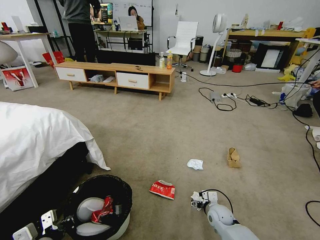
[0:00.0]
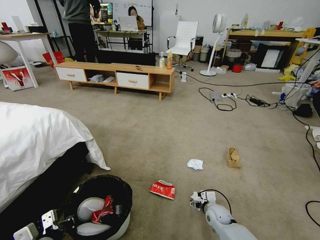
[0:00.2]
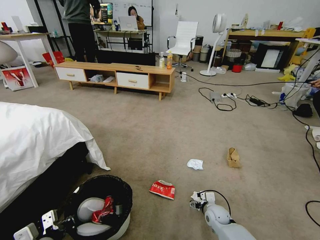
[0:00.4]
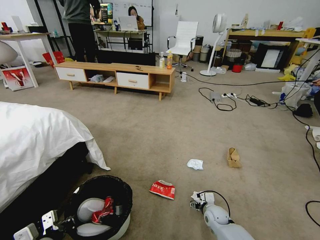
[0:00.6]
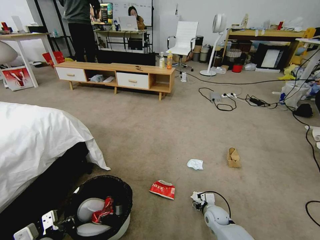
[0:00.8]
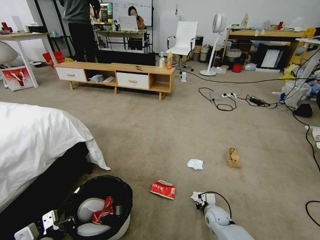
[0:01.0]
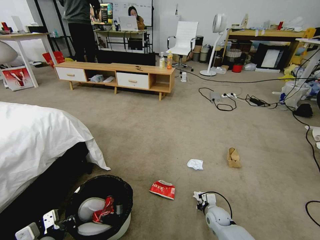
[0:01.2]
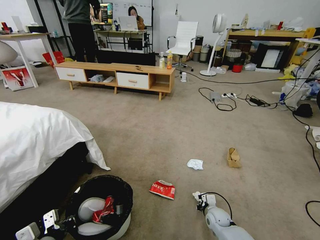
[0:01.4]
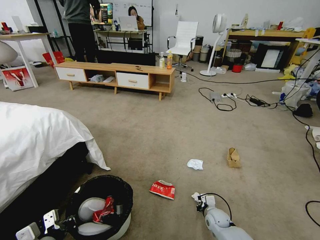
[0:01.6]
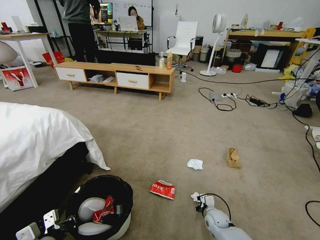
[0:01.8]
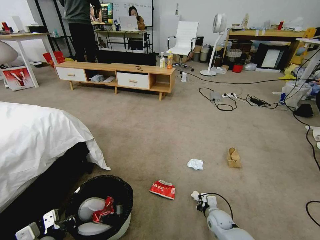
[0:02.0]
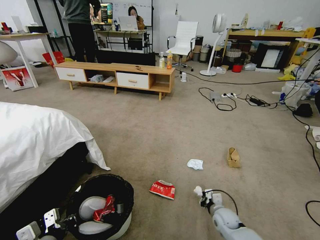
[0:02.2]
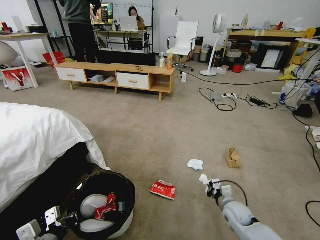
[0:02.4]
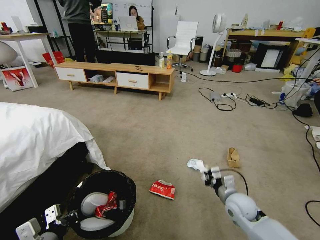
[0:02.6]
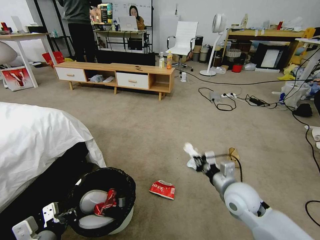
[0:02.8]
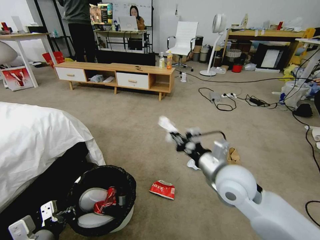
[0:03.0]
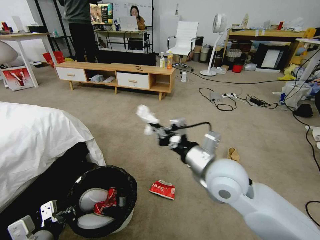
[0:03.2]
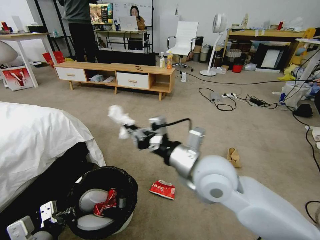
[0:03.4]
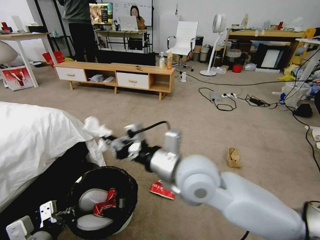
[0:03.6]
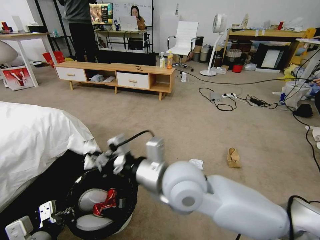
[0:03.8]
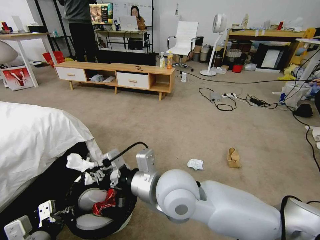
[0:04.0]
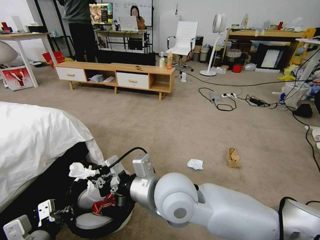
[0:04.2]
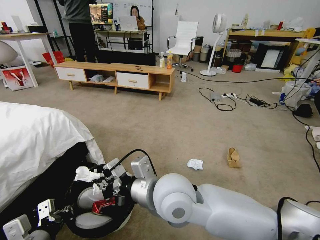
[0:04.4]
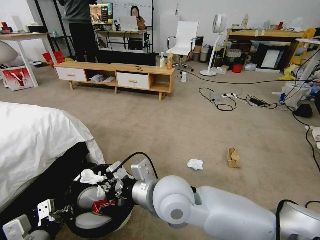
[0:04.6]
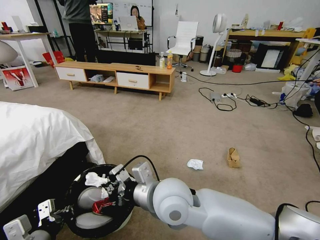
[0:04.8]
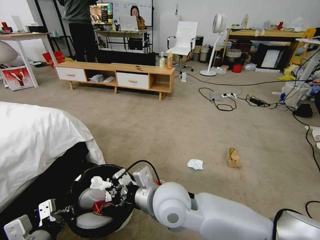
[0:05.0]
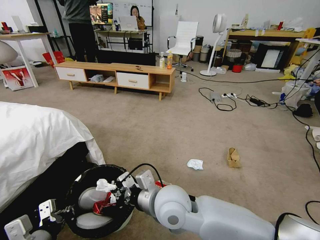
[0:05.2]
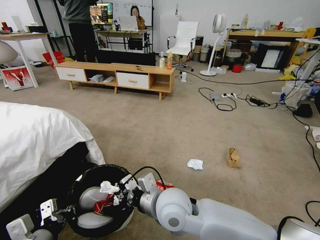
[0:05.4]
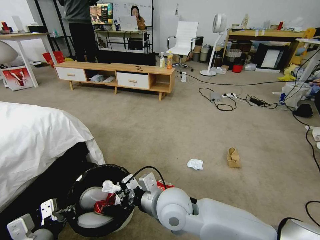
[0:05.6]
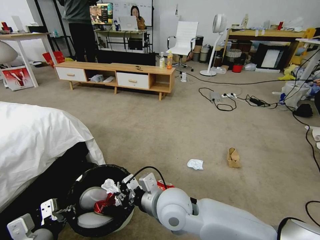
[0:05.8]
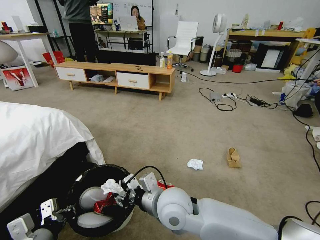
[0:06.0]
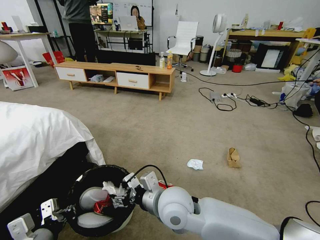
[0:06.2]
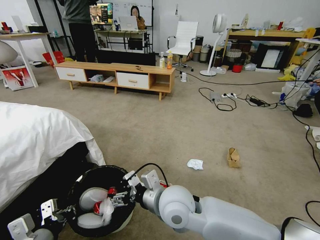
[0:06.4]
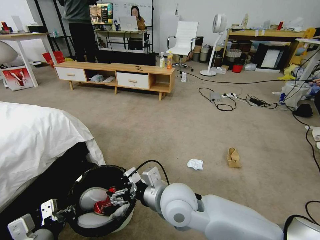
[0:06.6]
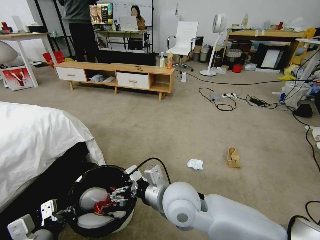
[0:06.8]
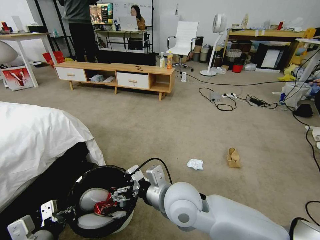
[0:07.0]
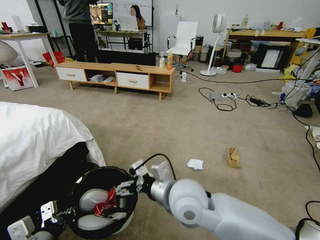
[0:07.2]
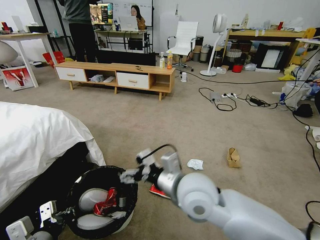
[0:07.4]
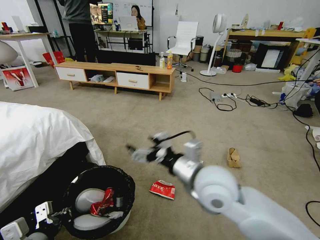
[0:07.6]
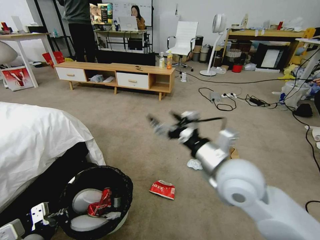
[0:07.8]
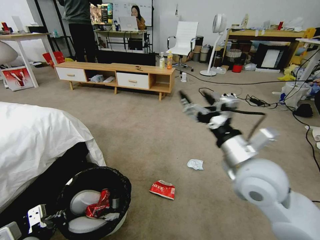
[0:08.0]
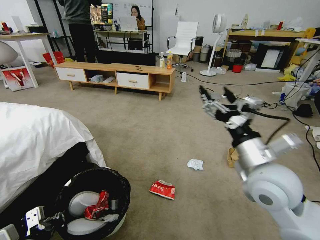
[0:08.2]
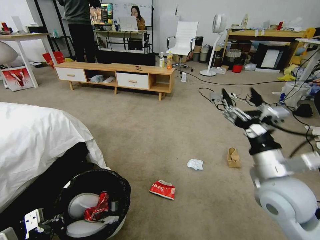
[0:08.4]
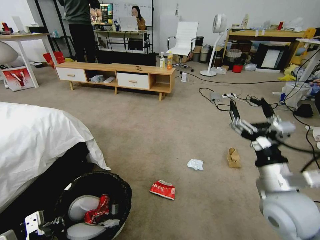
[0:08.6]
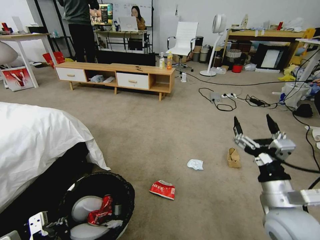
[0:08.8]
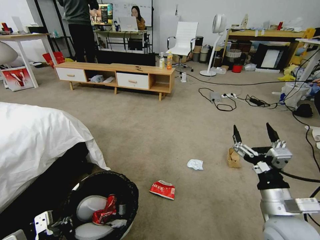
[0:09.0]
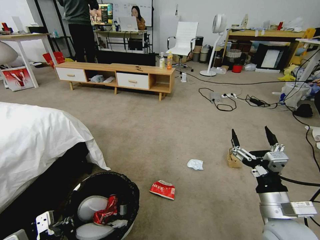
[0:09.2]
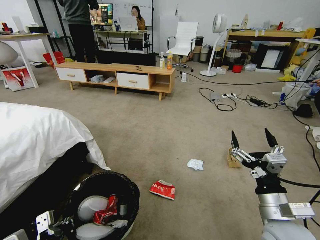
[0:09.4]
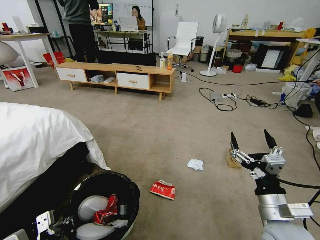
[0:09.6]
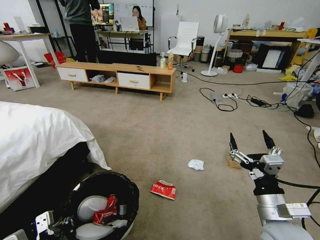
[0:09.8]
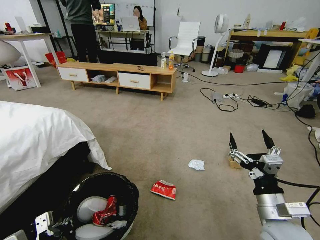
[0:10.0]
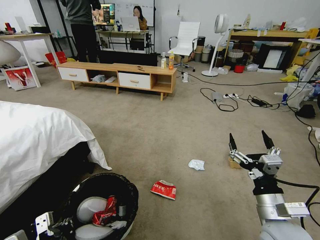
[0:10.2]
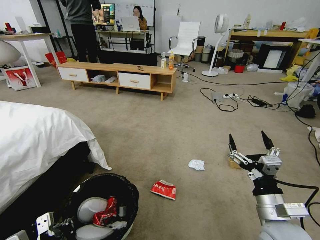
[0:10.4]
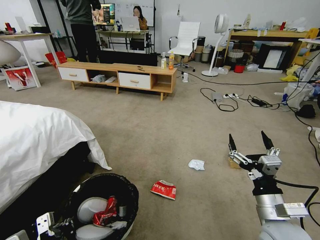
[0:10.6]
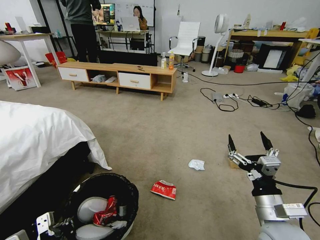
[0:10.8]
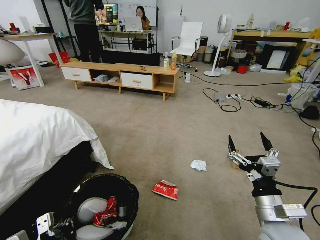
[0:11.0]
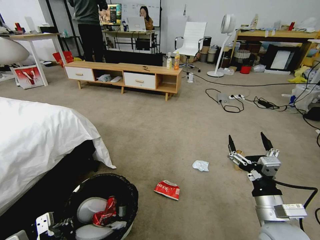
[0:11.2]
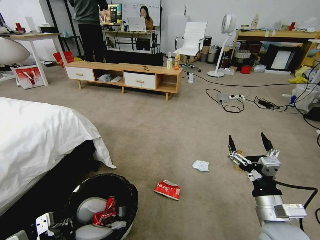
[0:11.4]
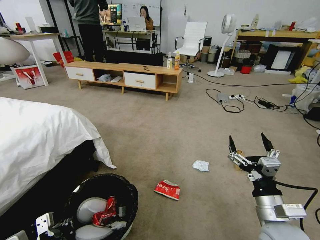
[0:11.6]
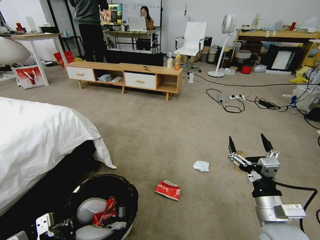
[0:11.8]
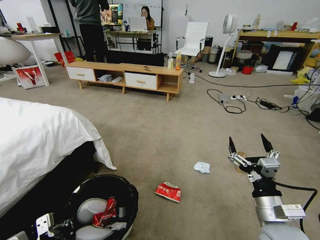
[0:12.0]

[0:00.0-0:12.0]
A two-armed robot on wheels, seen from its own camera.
Task of the whole recording: Pick up the trash bin and place the garbage on the floor into it.
0:00.0 to 0:01.6: The right gripper closes up.
0:01.6 to 0:03.0: The right gripper moves upward, some 35 cm.
0:03.0 to 0:04.4: The right gripper is displaced to the left by approximately 20 cm.
0:04.4 to 0:06.0: The right gripper shifts some 10 cm downward, and opens up.
0:06.0 to 0:07.6: The right gripper shifts some 10 cm upward and to the right, and opens up.
0:07.6 to 0:09.0: The right gripper heads to the right, downward and backward, covering approximately 20 cm.
0:09.0 to 0:10.4: There are only small adjustments of the grippers.

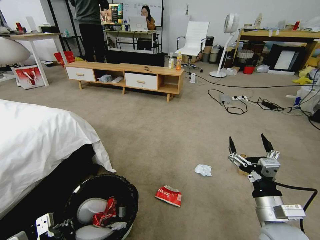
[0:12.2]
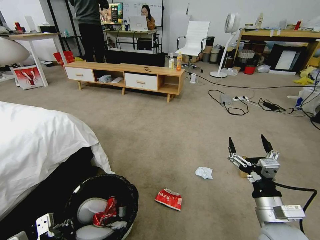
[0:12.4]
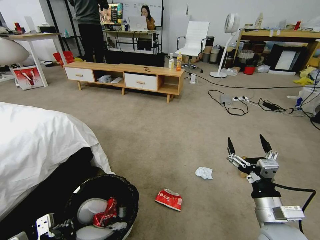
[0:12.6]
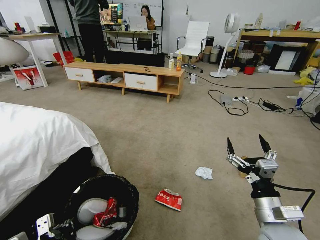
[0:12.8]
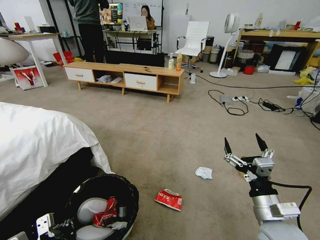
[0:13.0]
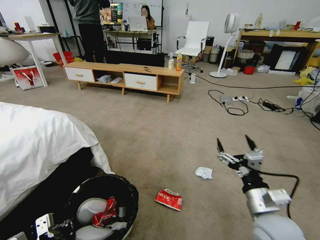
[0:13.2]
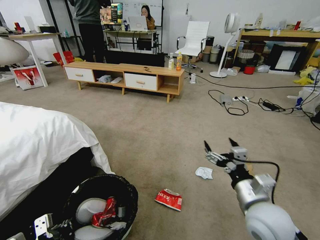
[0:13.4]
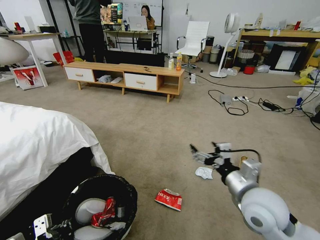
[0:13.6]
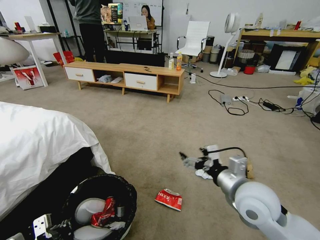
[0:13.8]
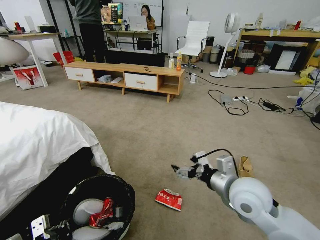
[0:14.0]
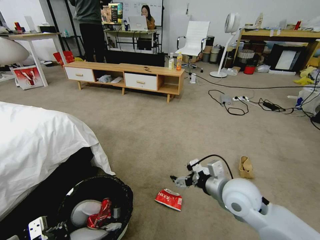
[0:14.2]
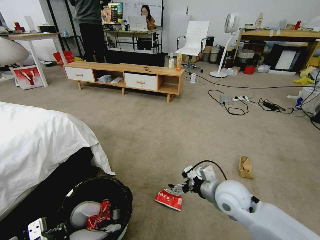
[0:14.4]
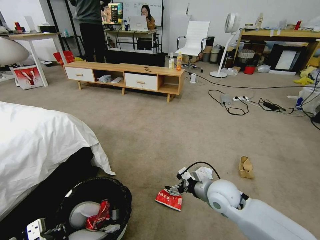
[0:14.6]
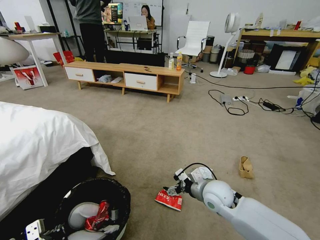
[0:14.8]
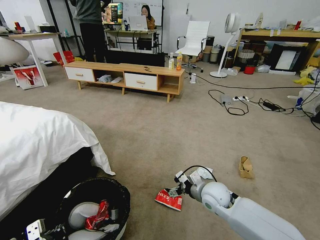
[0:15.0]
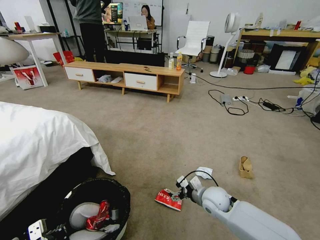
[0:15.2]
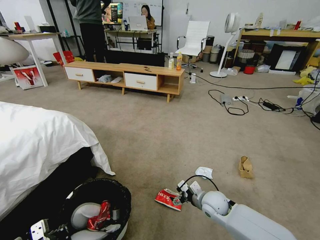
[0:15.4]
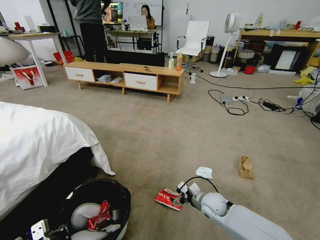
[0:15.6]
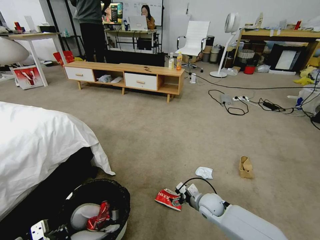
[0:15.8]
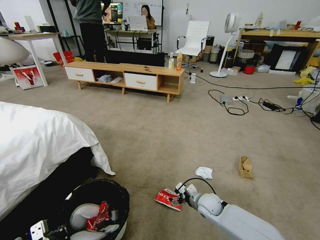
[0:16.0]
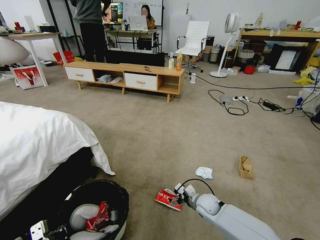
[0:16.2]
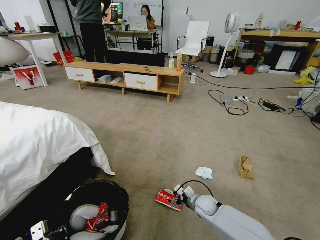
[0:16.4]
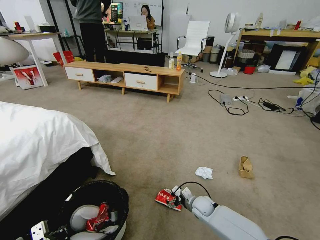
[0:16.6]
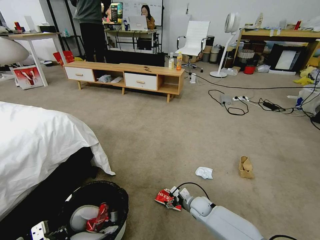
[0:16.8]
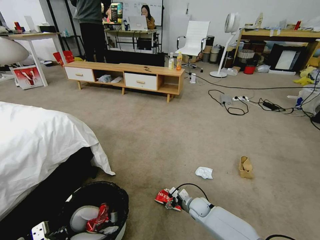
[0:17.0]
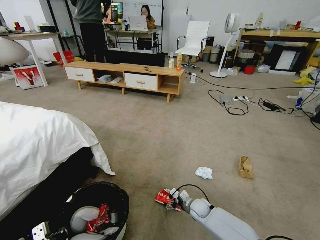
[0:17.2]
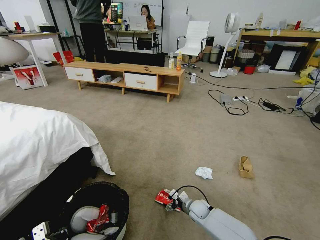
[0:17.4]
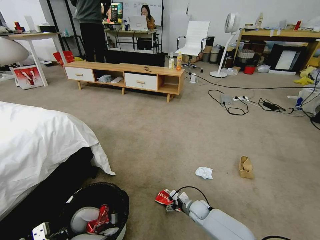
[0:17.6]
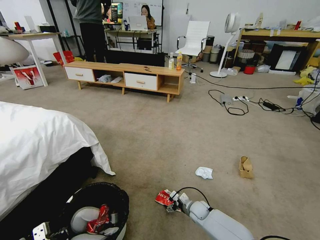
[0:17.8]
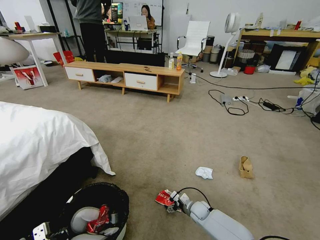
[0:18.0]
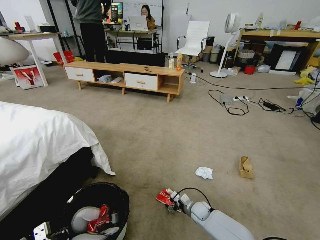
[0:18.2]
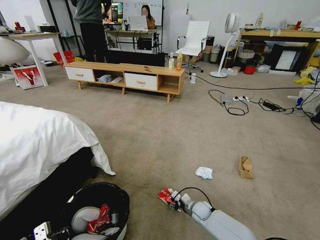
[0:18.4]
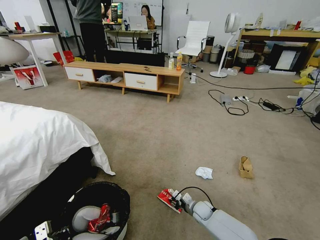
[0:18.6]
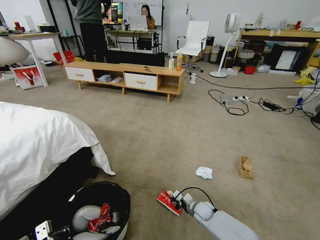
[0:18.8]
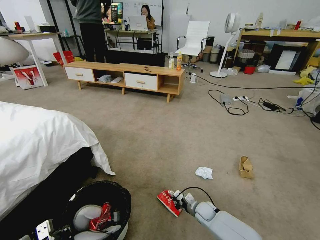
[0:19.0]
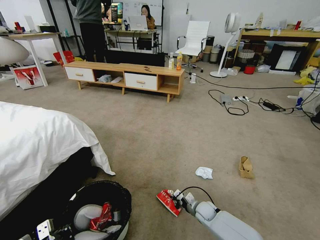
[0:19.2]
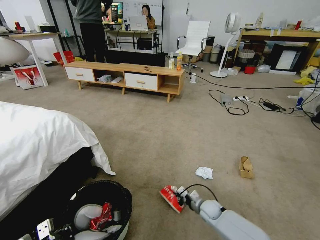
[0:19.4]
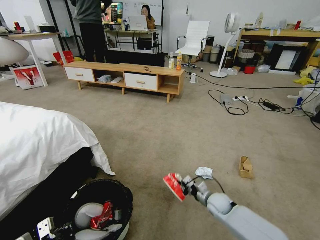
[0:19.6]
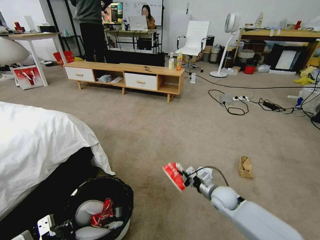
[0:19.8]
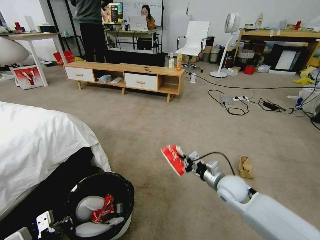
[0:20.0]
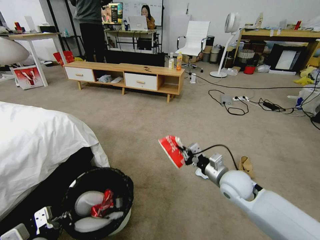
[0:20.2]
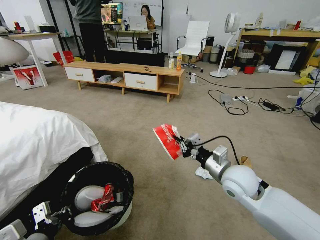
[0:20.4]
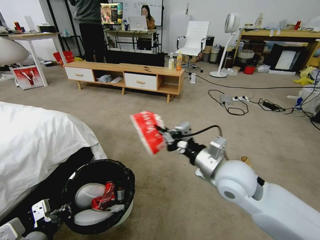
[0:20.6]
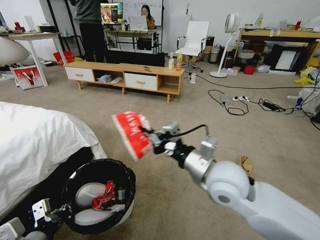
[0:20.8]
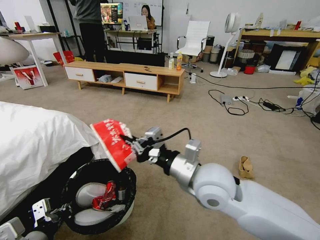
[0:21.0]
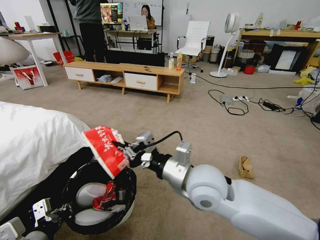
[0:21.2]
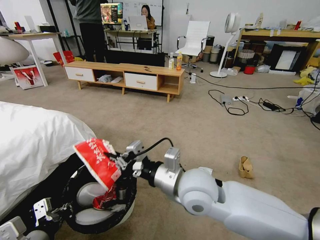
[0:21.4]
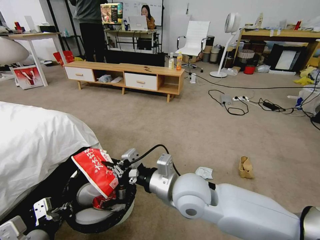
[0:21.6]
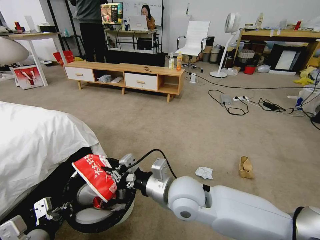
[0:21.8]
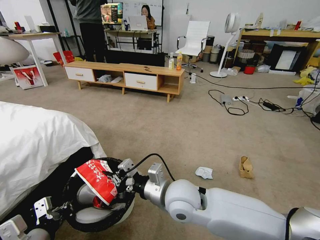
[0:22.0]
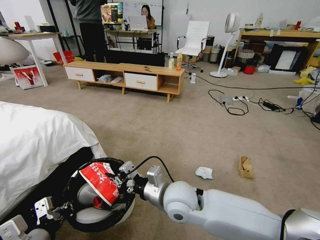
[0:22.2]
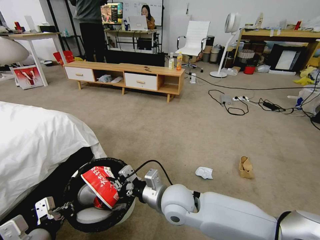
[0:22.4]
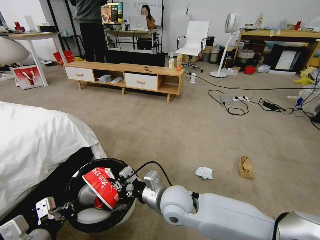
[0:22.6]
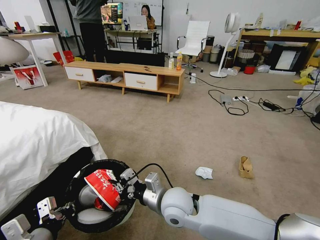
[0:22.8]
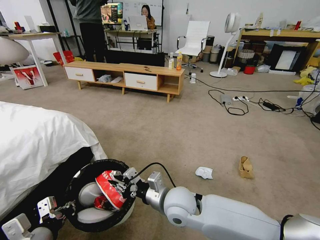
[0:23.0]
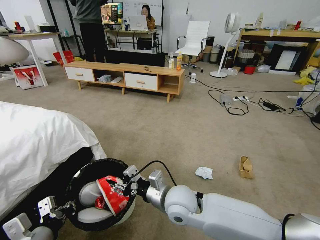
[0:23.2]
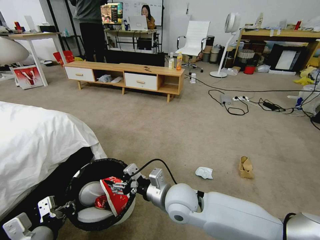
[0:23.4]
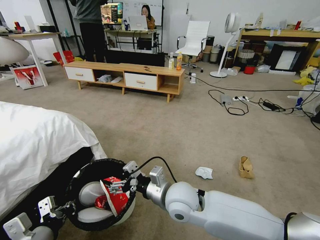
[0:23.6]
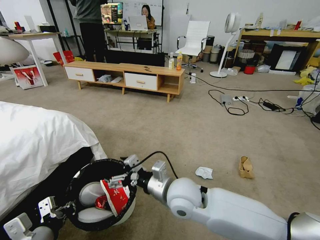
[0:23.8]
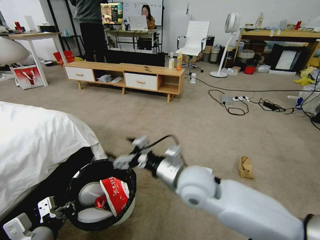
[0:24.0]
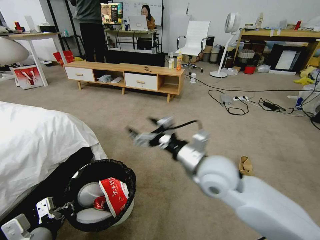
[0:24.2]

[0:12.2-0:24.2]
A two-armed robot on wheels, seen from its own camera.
Task of the whole recording: Pick up the trash bin and place the garbage on the floor into it.
0:12.2 to 0:13.8: The right gripper moves upward, forward and to the left, roughly 10 cm.
0:13.8 to 0:15.2: The right gripper moves downward and forward, approximately 20 cm.
0:15.2 to 0:16.6: The right gripper shifts roughly 15 cm downward.
0:16.6 to 0:18.2: The right gripper travels downward by about 5 cm.
0:18.2 to 0:19.8: The right gripper shifts some 15 cm upward, and closes.
0:19.8 to 0:21.2: The left gripper moves upward, some 5 cm; the right gripper is displaced upward and to the left by approximately 30 cm.
0:21.2 to 0:22.6: The right gripper shifts some 10 cm downward and to the left.
0:22.6 to 0:24.2: The right gripper goes approximately 10 cm upward and to the right, and opens.
